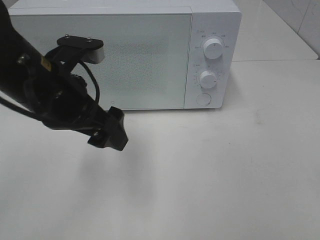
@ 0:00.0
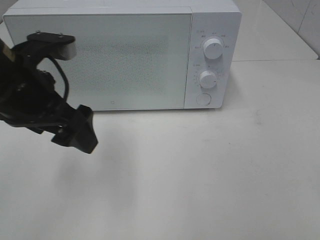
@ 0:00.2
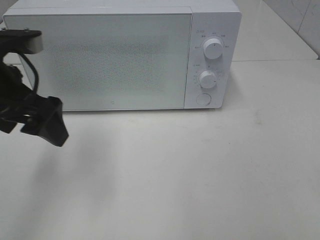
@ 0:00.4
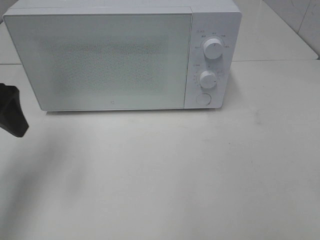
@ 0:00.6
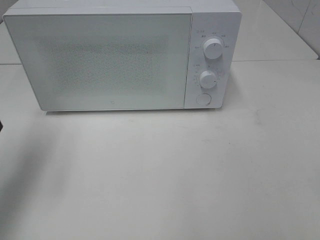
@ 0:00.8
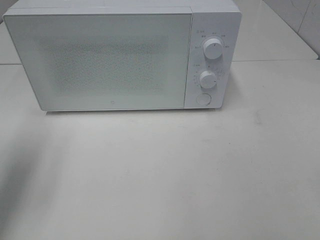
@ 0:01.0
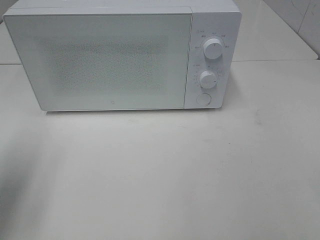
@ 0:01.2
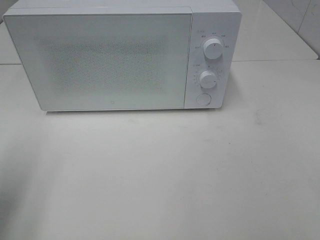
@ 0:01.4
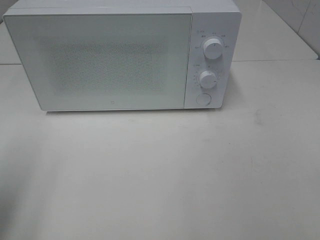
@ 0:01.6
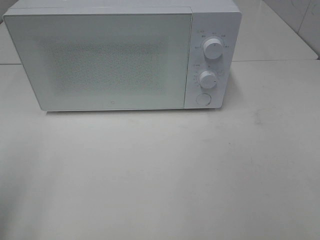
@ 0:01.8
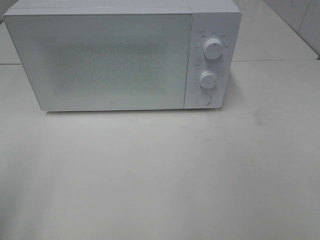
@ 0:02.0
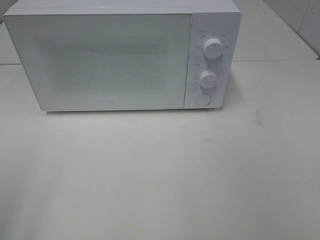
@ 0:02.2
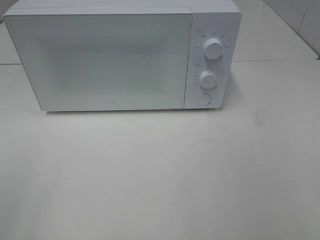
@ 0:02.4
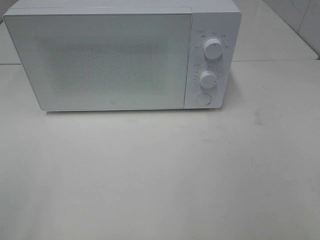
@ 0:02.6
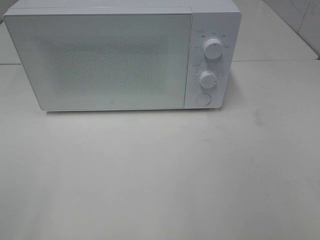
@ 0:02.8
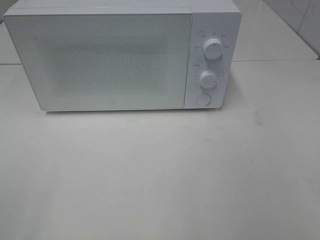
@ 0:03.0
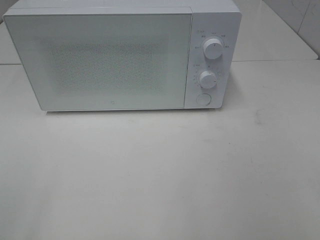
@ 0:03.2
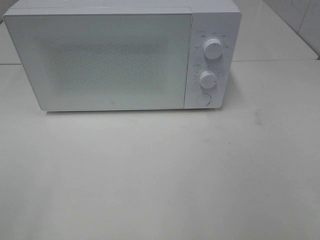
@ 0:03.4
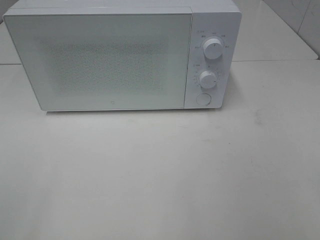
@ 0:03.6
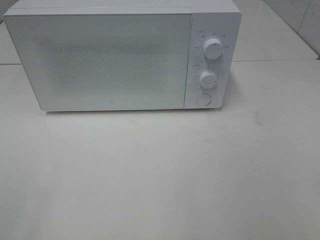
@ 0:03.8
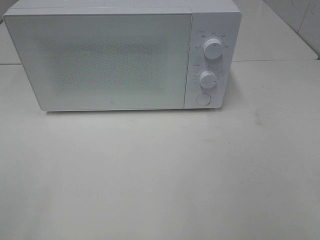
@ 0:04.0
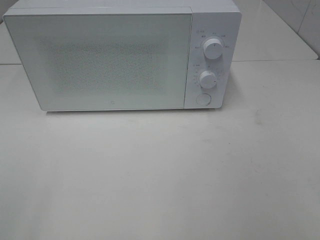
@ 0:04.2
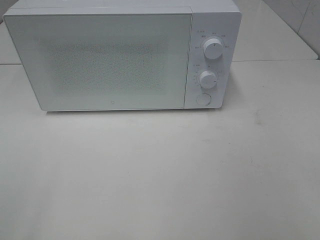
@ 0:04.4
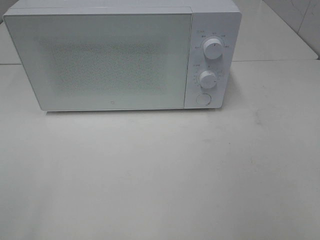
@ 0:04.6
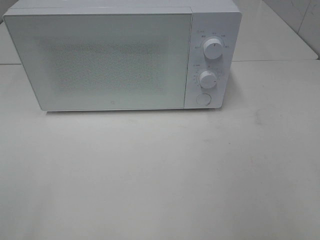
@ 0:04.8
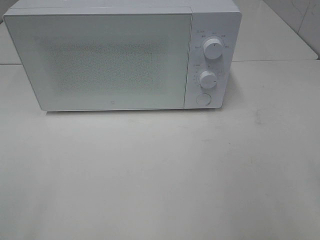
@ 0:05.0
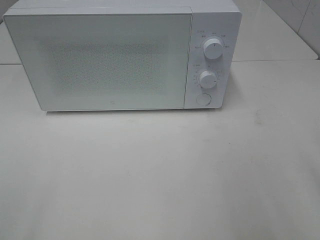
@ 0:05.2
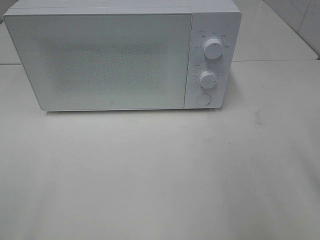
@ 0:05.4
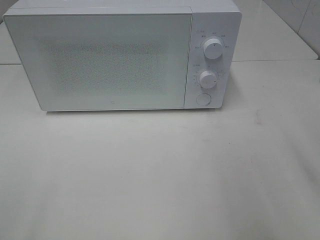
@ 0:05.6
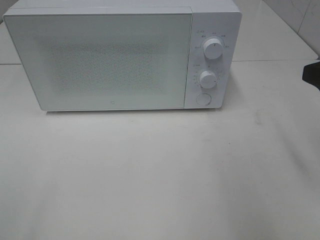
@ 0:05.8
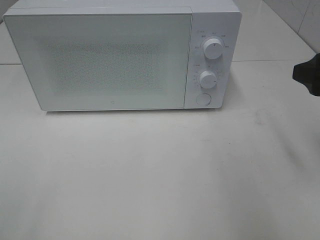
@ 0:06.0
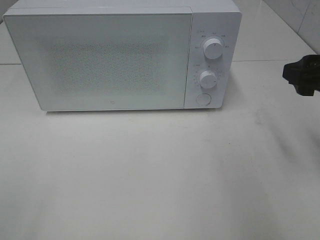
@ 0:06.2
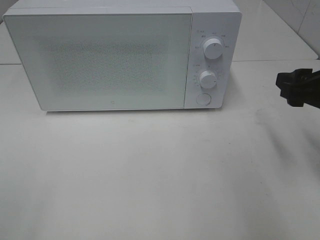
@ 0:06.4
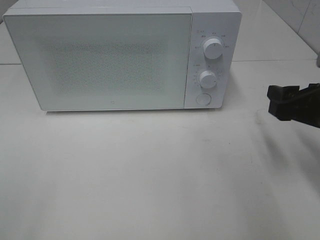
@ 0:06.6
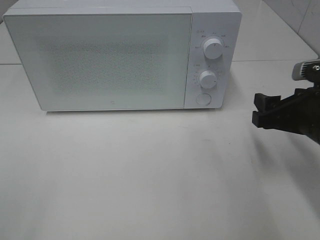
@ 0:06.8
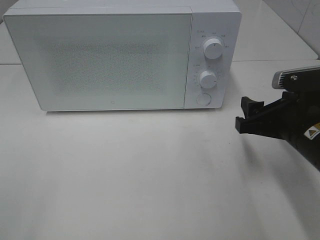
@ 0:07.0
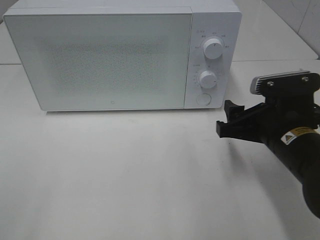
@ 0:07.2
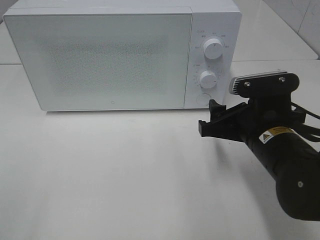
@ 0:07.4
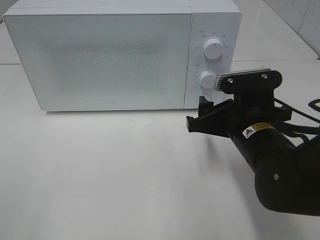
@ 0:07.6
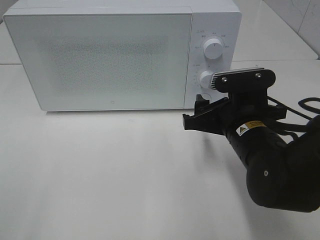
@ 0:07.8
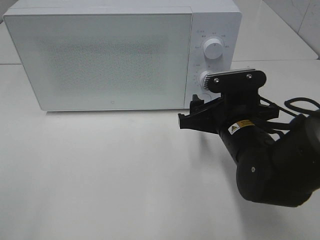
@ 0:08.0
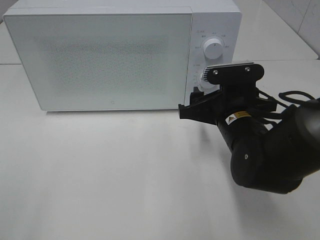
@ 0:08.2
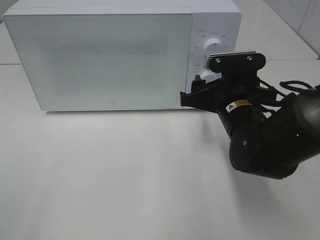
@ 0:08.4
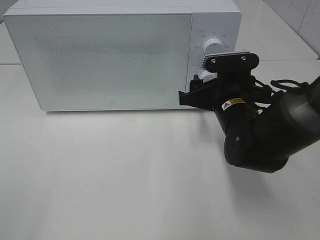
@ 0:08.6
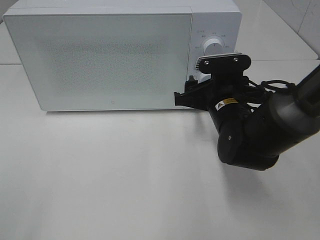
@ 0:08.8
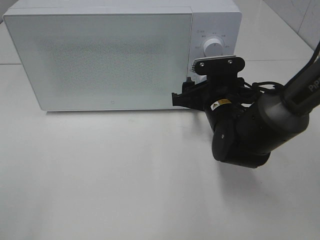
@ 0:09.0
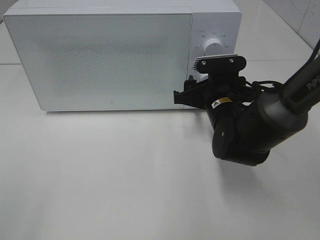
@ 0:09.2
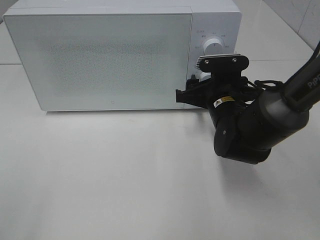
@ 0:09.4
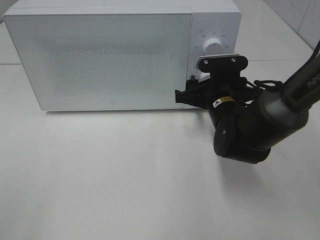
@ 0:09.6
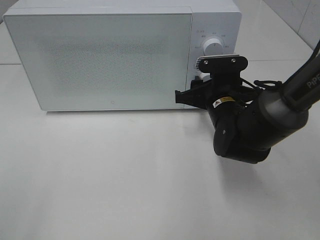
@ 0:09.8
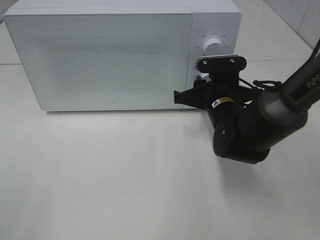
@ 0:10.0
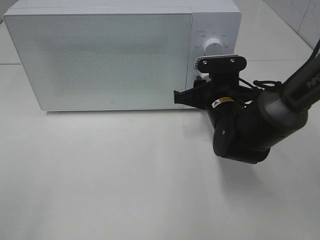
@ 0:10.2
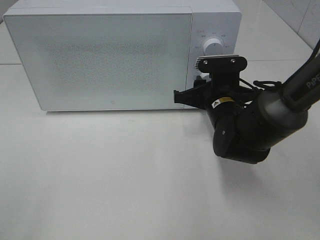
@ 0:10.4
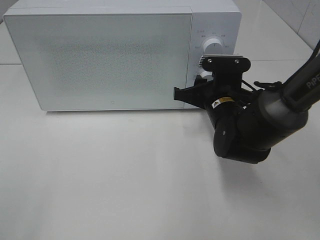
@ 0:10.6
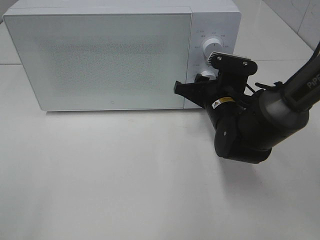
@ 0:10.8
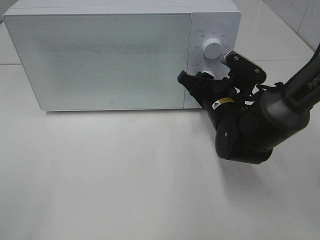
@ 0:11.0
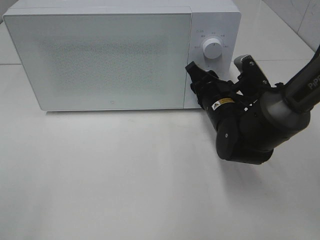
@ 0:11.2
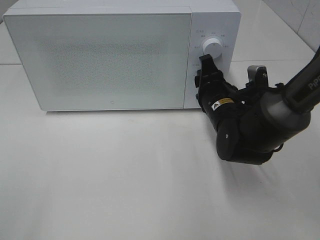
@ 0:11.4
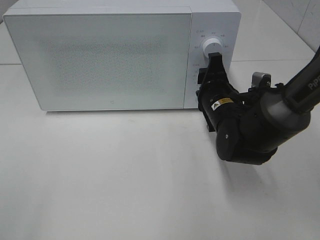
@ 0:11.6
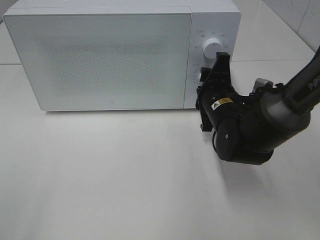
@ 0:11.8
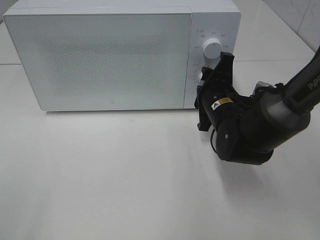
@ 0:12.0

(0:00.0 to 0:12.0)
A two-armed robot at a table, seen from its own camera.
Task of the whole recording: Heat the burger.
0:00.0 - 0:01.6: The left gripper travels to the left and backward by approximately 20 cm.
0:01.6 - 0:03.0: The left gripper moves backward, about 15 cm.
0:04.4 - 0:06.0: The right gripper moves forward, roughly 20 cm.
0:06.0 - 0:07.6: The right gripper is displaced to the left and downward by roughly 15 cm.
0:07.6 - 0:09.0: The right gripper heads forward, covering about 10 cm.
0:09.0 - 0:10.4: The two grippers keep their place.

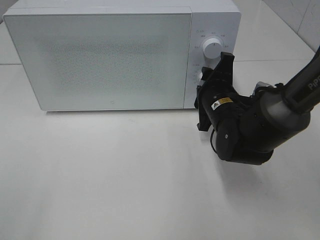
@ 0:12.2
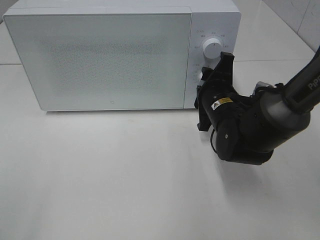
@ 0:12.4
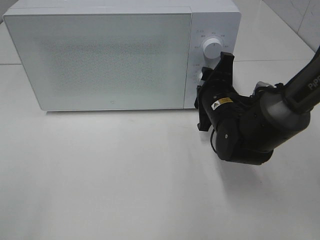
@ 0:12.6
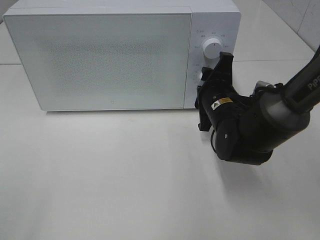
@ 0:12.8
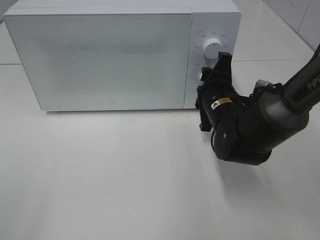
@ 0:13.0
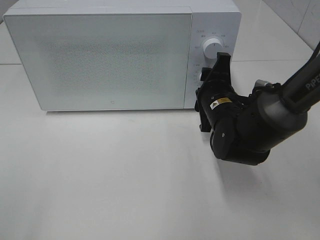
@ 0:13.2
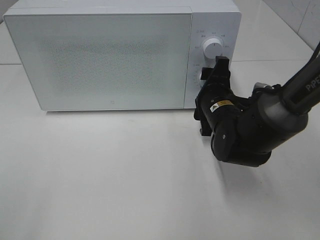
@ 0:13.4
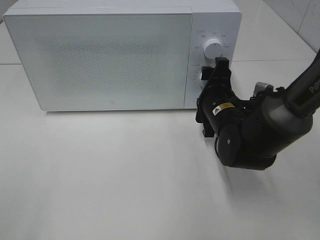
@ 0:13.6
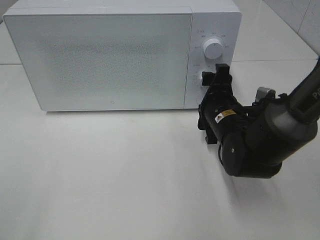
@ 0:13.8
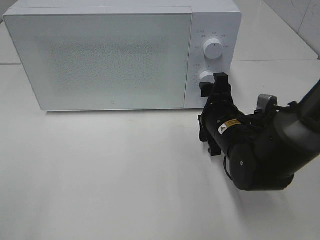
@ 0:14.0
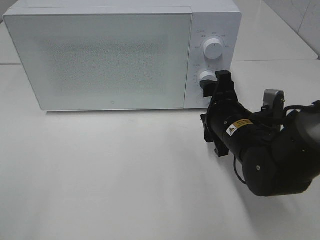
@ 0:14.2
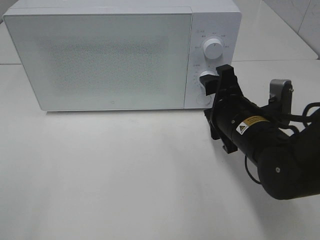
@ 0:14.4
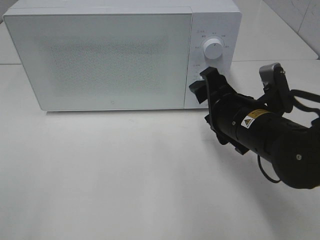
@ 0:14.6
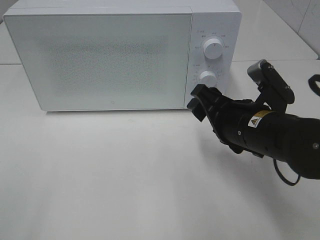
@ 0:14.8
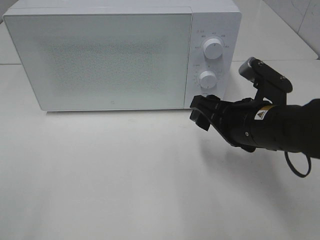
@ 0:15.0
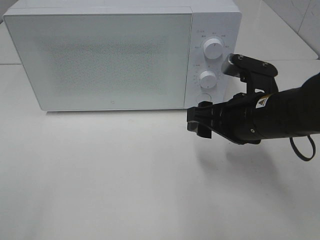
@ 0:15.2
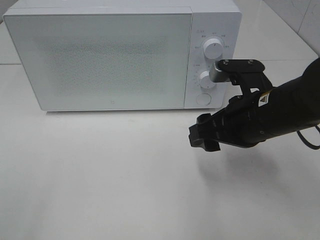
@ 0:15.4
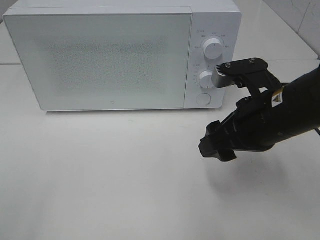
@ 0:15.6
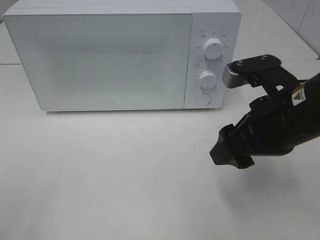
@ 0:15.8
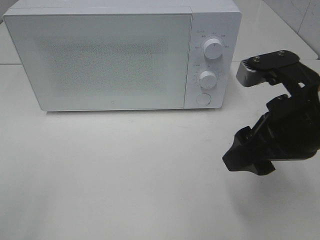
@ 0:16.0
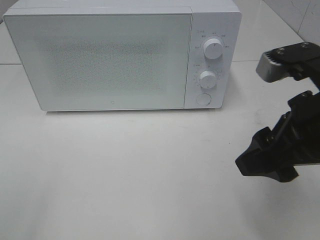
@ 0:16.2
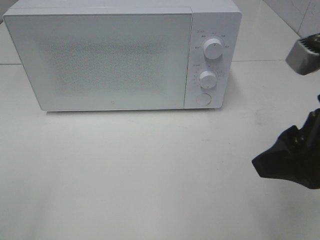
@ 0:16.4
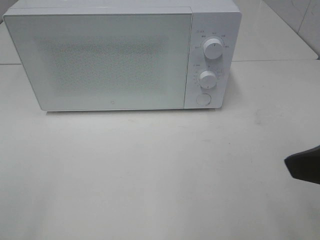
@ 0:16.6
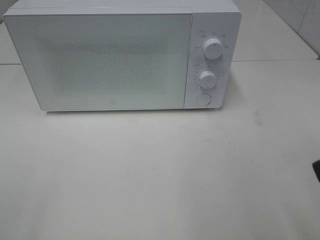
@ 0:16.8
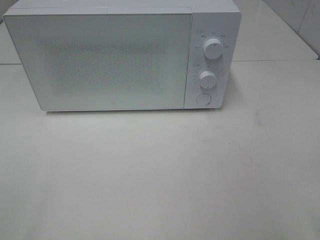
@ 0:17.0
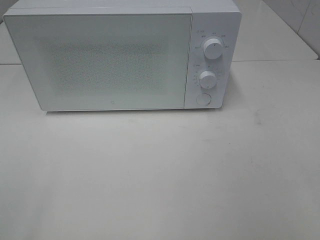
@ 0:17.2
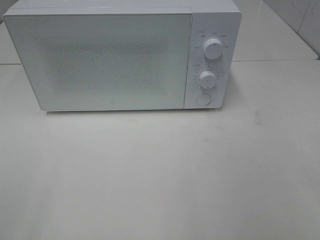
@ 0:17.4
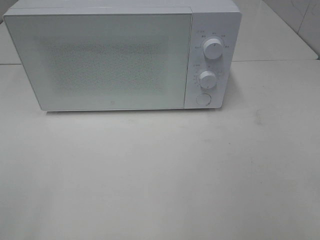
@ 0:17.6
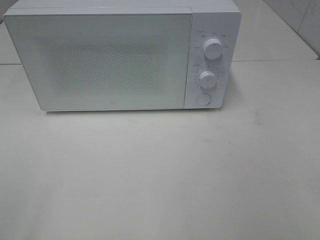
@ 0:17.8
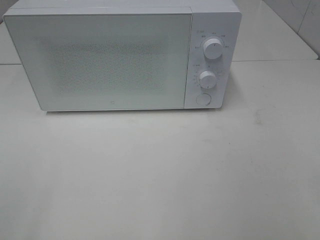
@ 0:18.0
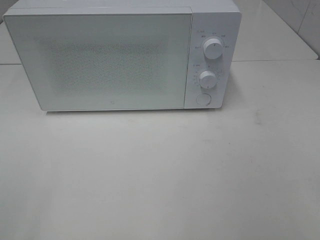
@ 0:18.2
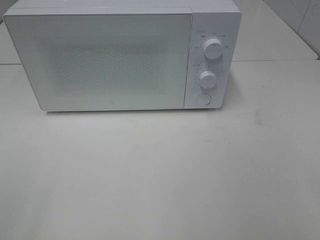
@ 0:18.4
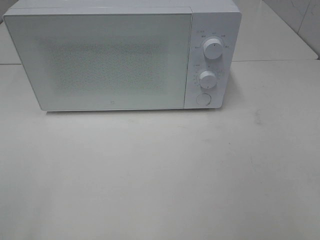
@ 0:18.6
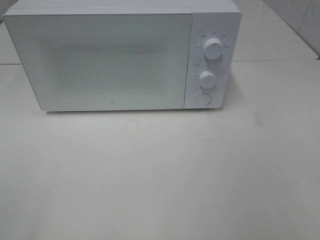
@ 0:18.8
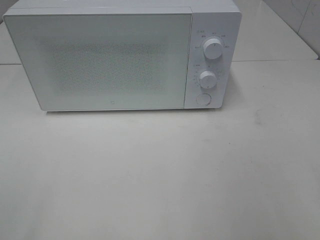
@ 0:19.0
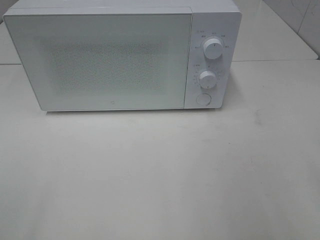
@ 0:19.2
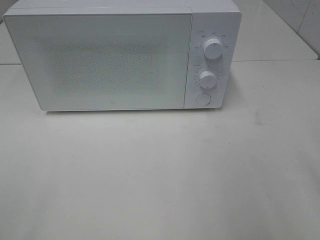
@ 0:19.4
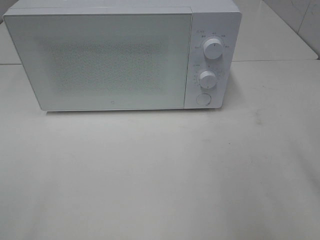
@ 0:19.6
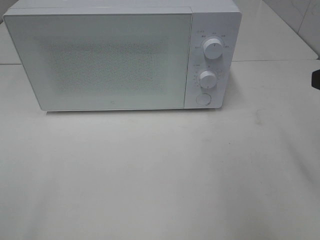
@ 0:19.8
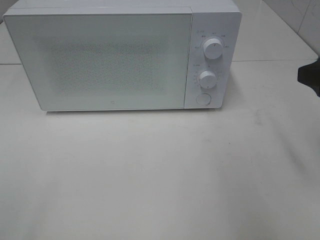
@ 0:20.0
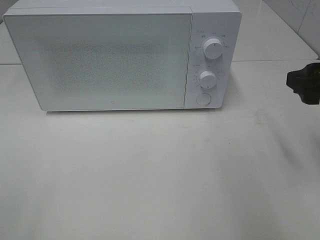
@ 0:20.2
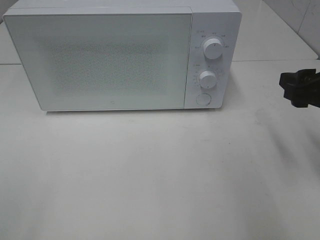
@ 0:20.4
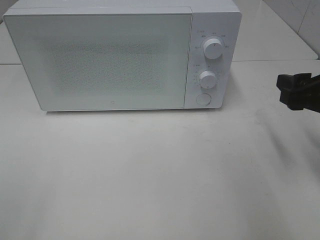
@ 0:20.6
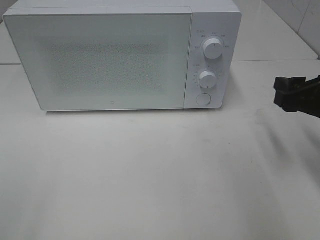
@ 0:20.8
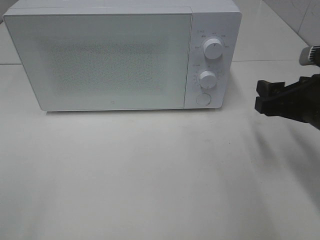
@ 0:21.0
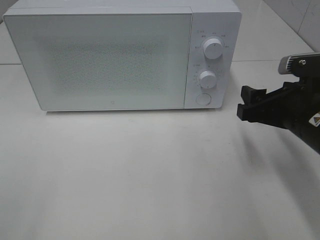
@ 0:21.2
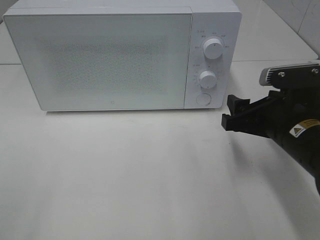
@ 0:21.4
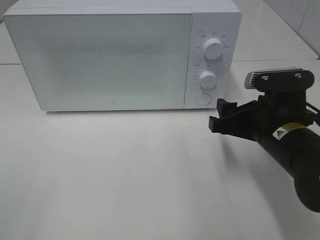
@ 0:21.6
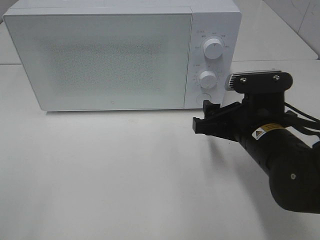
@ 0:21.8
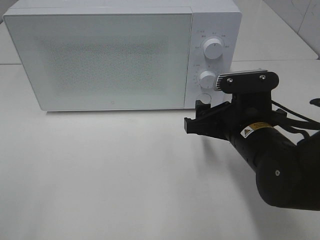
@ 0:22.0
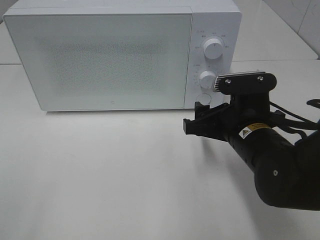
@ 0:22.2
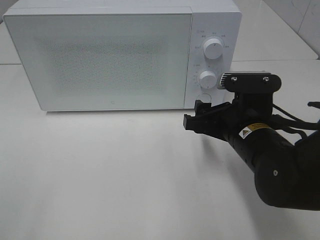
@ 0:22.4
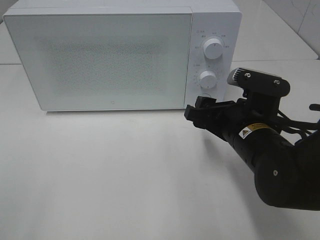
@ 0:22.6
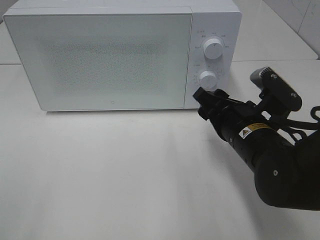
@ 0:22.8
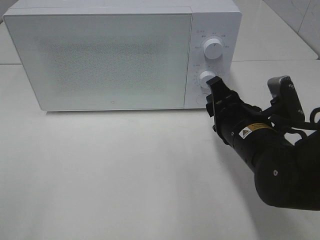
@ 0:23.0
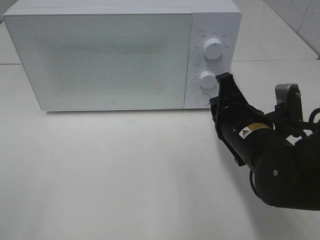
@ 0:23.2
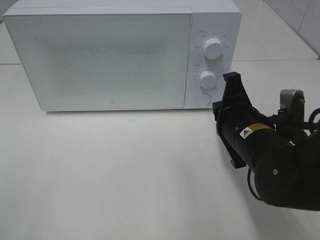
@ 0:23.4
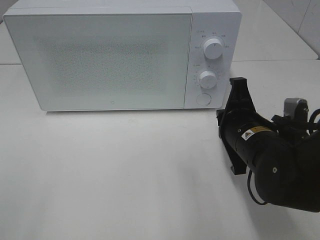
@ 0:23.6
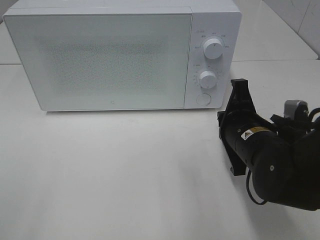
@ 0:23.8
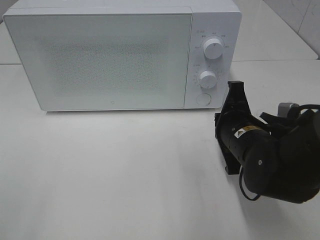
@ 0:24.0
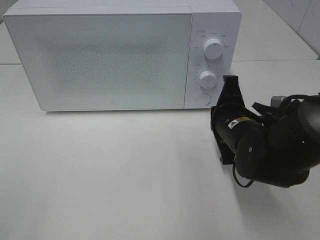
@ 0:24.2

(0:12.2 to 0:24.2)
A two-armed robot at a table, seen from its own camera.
Task of the whole recording: Heat the burger.
0:12.2 - 0:13.8: The grippers make only small movements.
0:13.8 - 0:15.2: The right gripper travels upward and backward by roughly 10 cm.
0:15.2 - 0:16.6: The right gripper shifts some 20 cm backward, upward and to the right.
0:16.6 - 0:18.2: The right gripper is displaced backward and to the right by roughly 15 cm.
0:19.8 - 0:21.2: The right gripper is displaced downward, to the left and forward by about 15 cm.
0:21.2 - 0:22.6: The right gripper goes approximately 5 cm to the left.
0:22.6 - 0:24.2: The right gripper closes up.
